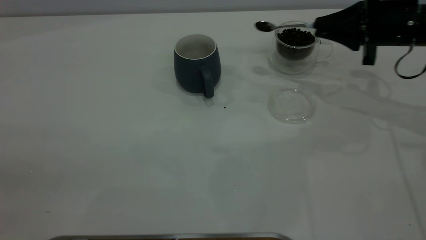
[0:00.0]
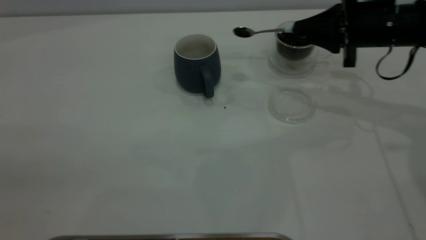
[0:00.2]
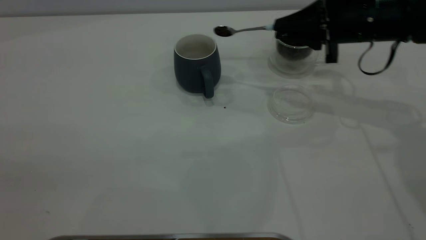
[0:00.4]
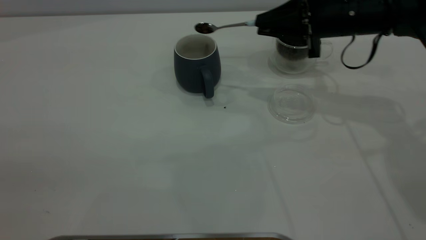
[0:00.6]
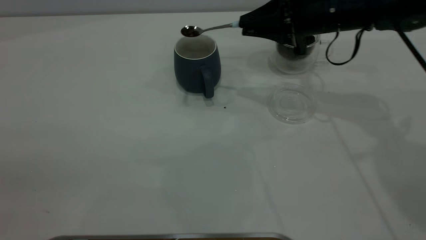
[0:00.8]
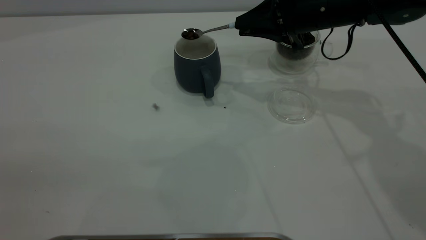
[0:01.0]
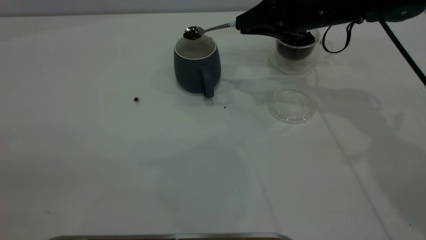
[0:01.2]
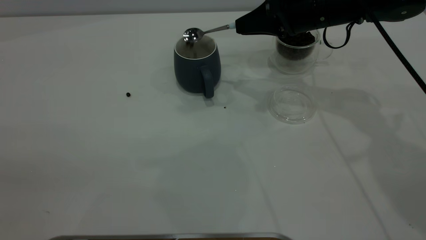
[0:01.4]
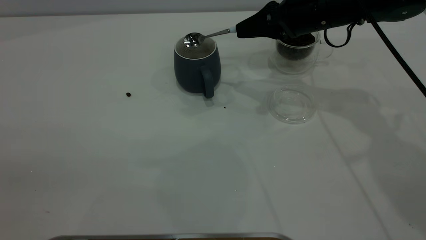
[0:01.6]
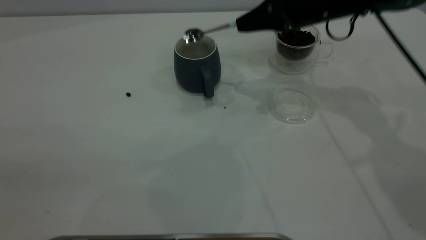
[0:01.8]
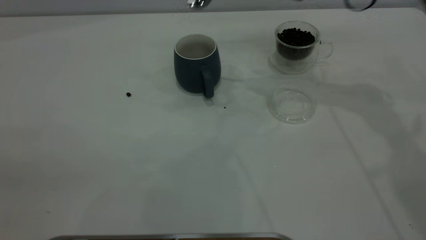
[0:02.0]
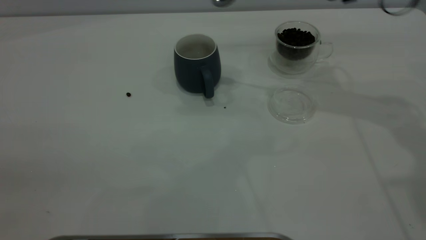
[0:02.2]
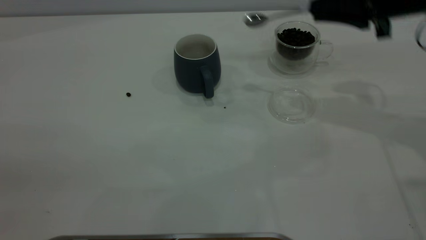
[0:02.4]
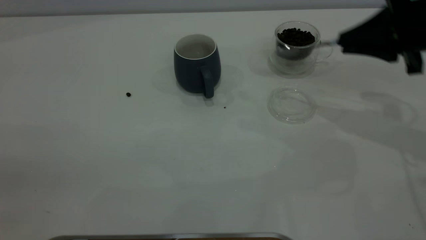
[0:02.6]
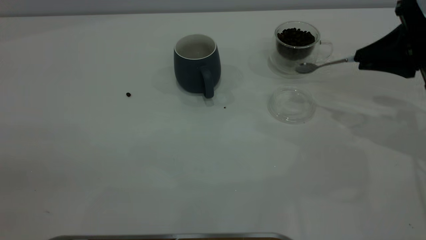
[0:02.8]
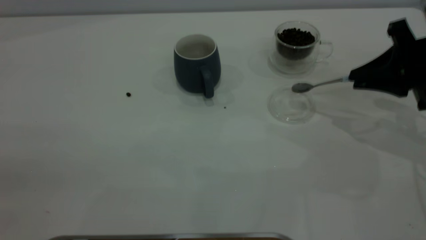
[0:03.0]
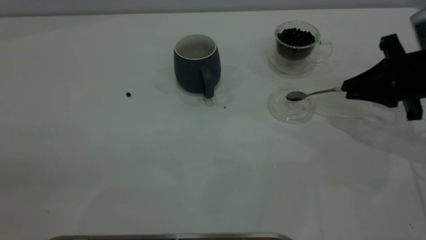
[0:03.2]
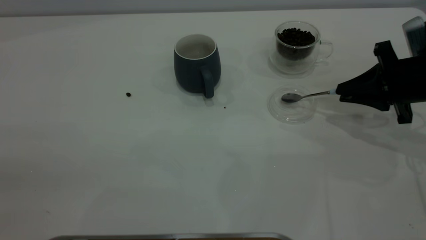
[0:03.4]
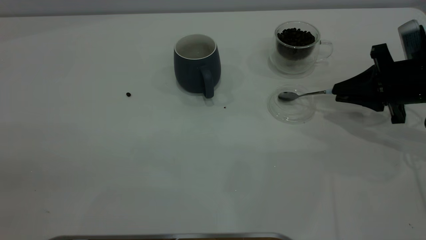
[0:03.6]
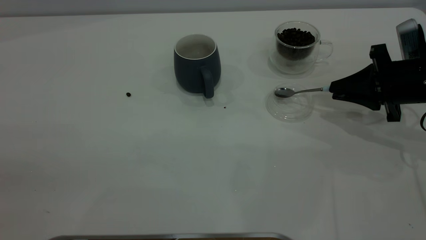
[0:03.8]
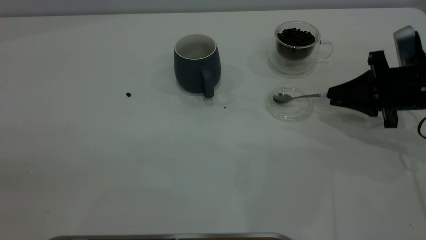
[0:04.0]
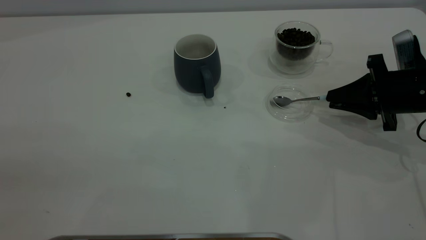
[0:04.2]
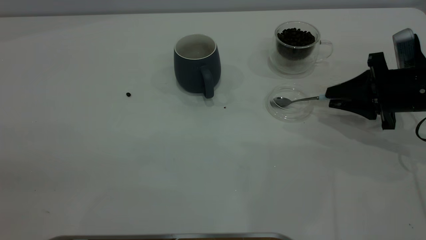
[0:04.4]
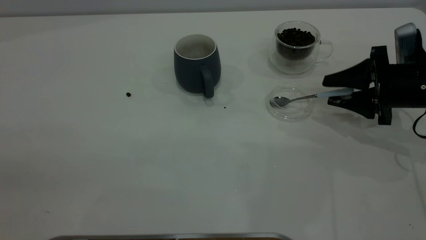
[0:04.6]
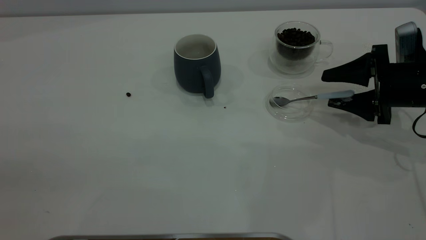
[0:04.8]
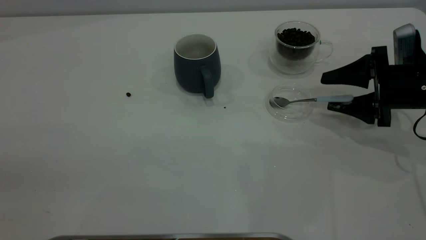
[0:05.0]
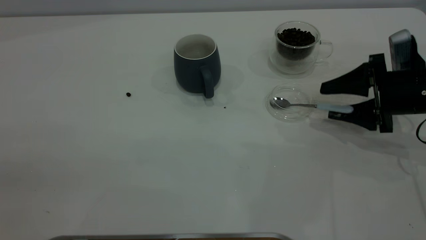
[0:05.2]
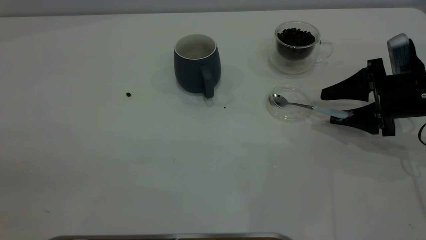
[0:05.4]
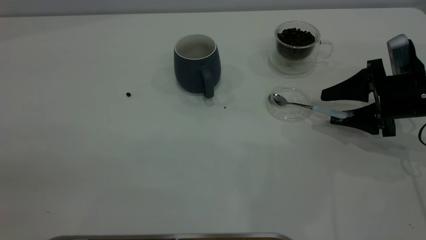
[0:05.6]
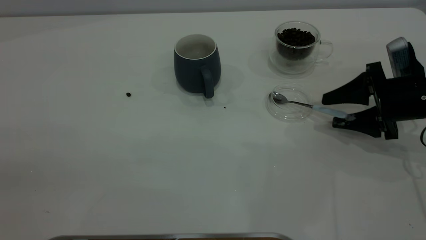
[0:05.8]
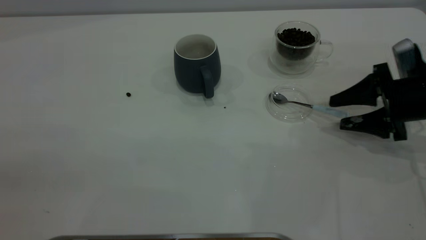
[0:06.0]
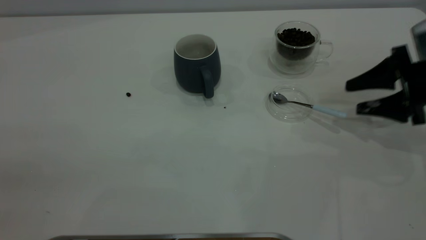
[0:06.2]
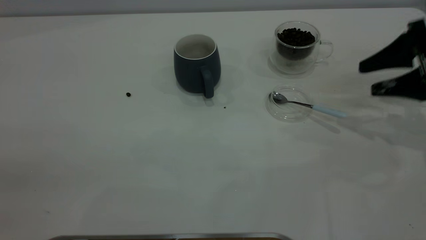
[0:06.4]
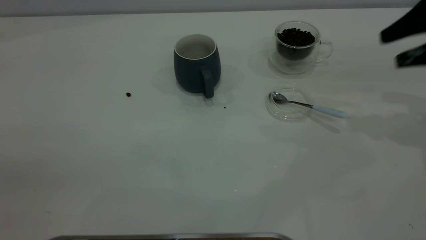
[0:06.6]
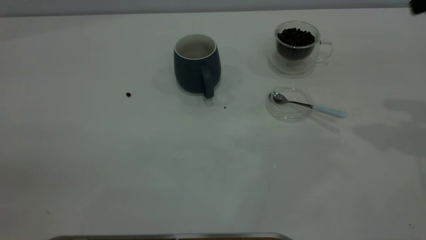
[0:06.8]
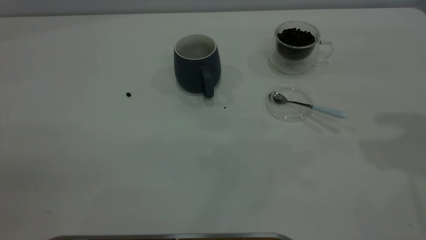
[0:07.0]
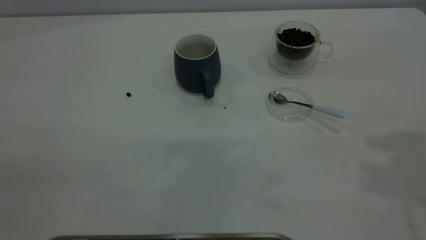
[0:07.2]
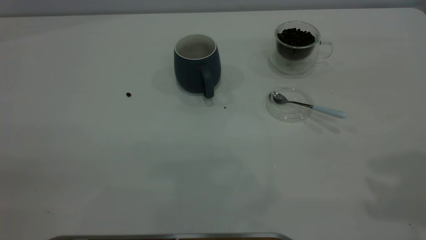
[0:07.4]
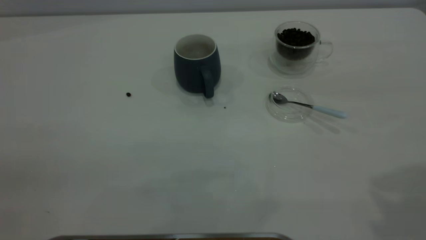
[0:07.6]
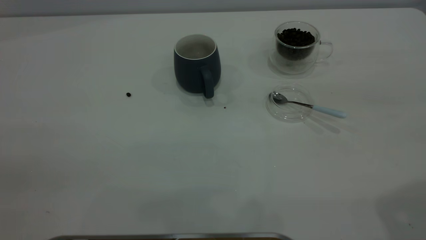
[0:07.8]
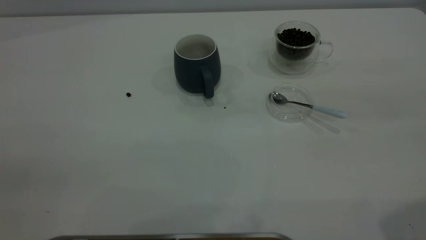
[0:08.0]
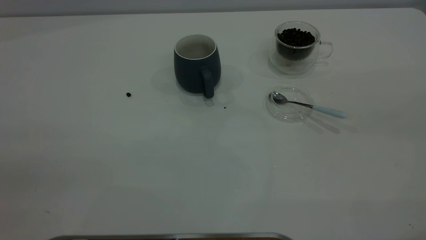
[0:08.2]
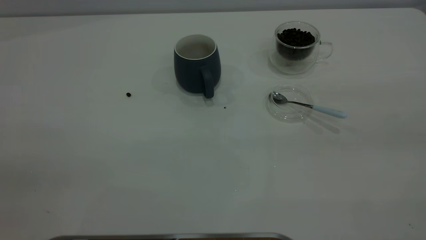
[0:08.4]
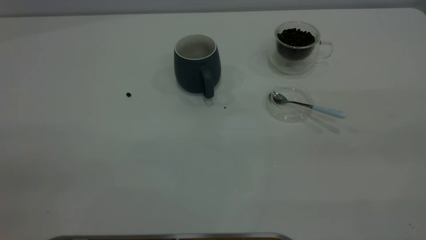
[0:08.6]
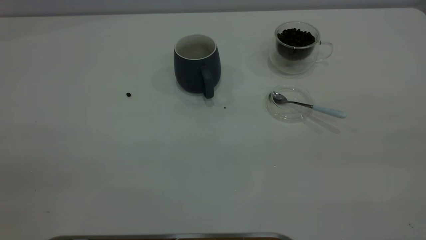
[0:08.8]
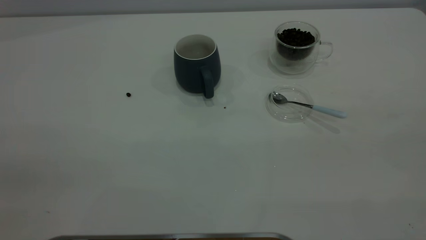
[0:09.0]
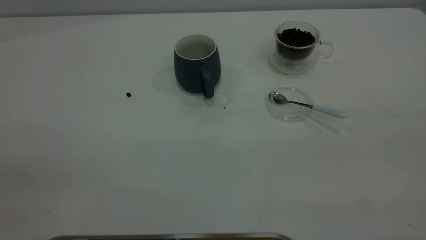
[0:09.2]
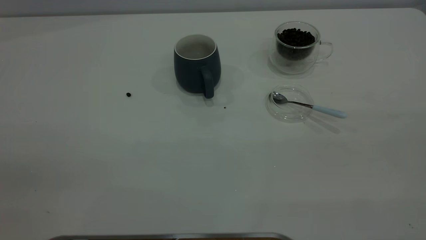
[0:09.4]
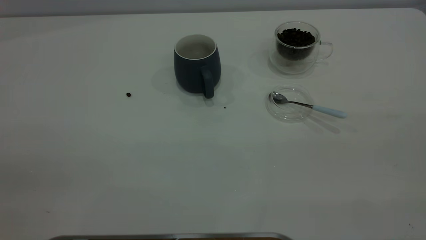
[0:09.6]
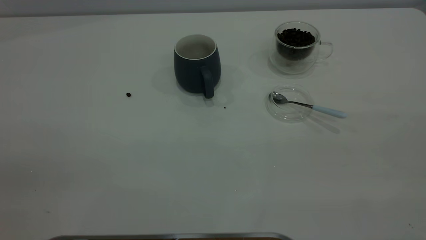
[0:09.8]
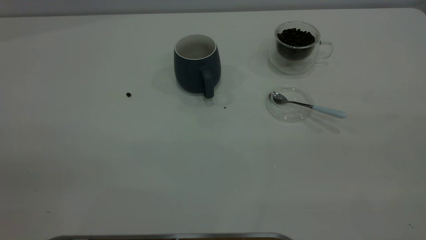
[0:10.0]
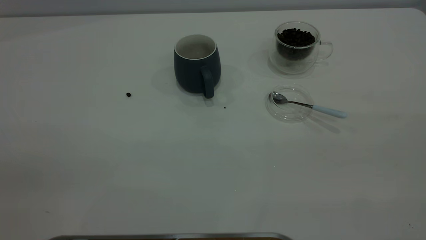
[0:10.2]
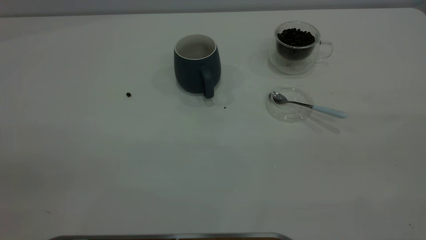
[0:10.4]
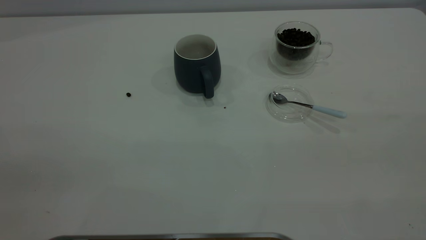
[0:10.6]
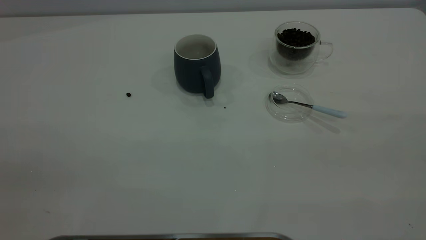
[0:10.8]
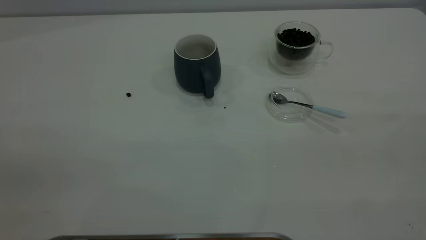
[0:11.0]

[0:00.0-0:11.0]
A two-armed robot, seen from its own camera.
Task of the whole recording: the left gripper place the grey cup in the center of the table, the right gripper take the blue spoon from the cup lid and scoop out the coffee beans from the coffee cup and put them into the grey cup, the right gripper put the spoon back into the cup lid.
Step, 0:02.0 to 0:06.0: Place the spoon back in its original place.
0:00.0 to 0:01.6: The right gripper is displaced to the left by some 10 cm.
0:01.6 to 0:03.2: The right gripper travels to the right and backward by roughly 20 cm.
0:03.2 to 0:04.8: The right gripper opens up.
0:04.8 to 0:06.2: The grippers move only a little.
0:06.2 to 0:07.8: The right gripper shifts approximately 35 cm upward and backward.
0:09.4 to 0:11.0: Neither gripper changes place.
